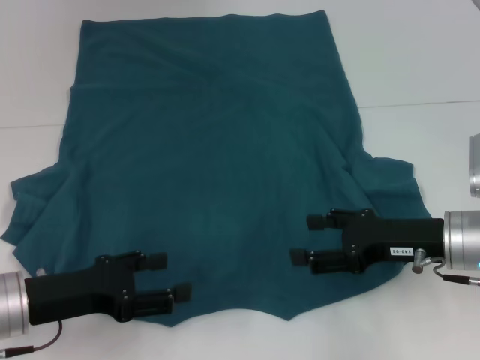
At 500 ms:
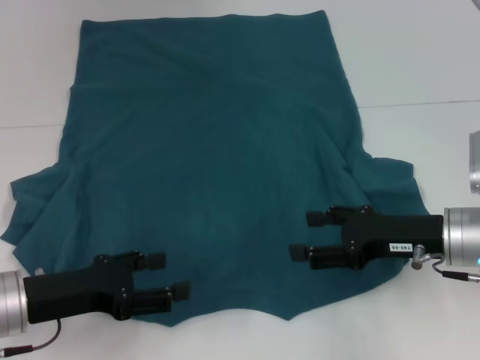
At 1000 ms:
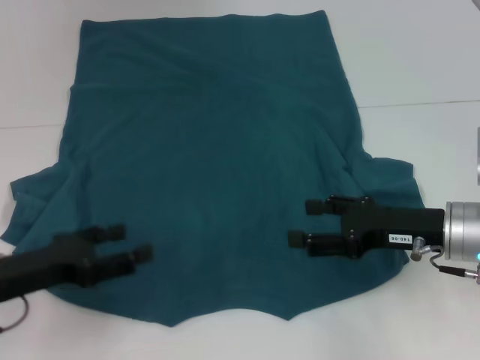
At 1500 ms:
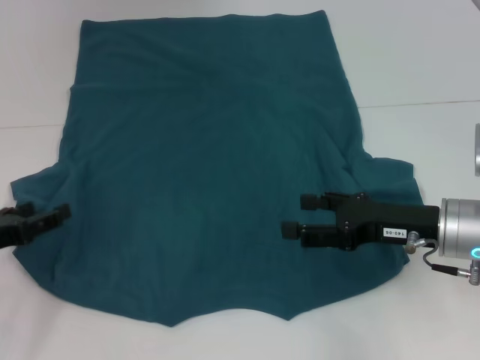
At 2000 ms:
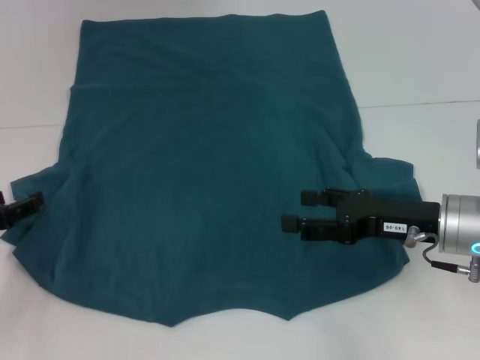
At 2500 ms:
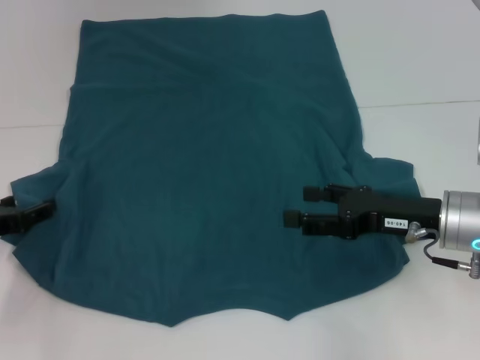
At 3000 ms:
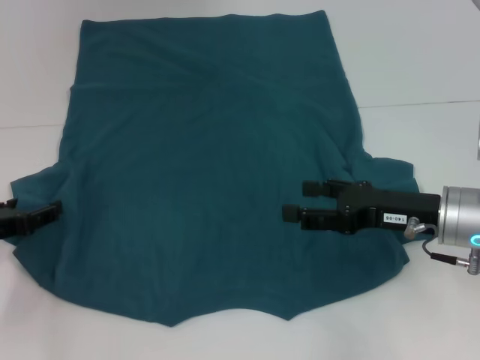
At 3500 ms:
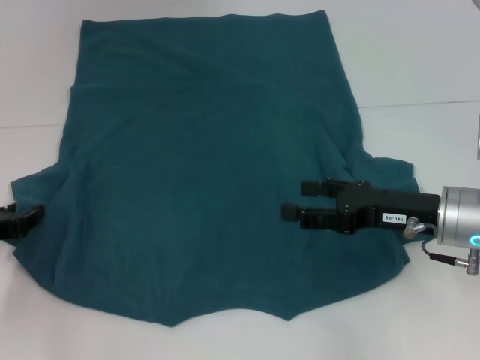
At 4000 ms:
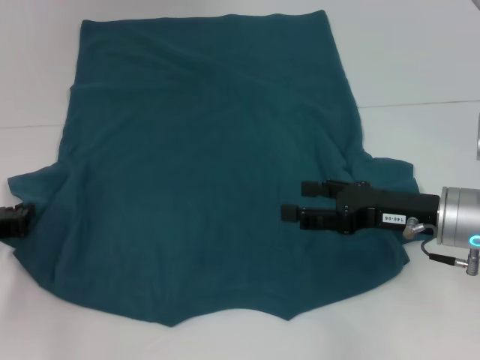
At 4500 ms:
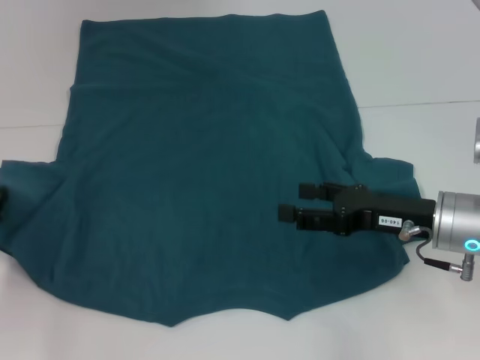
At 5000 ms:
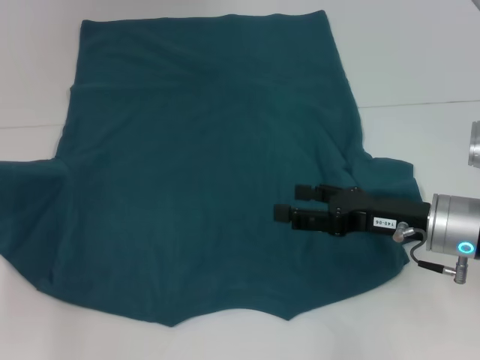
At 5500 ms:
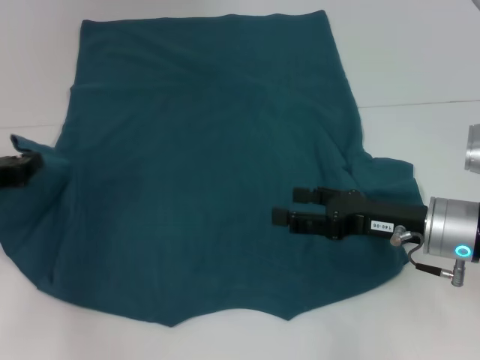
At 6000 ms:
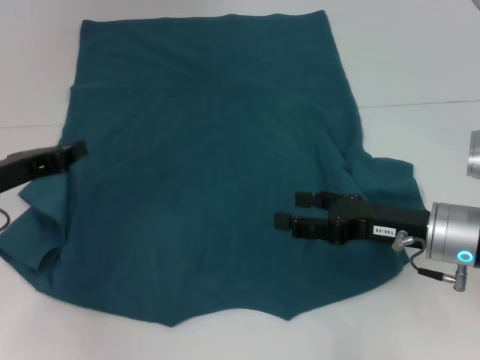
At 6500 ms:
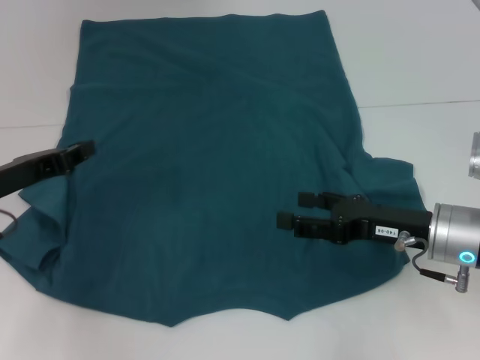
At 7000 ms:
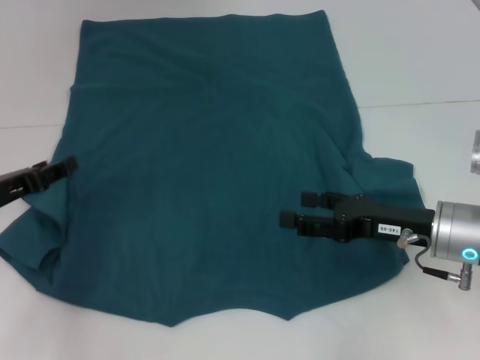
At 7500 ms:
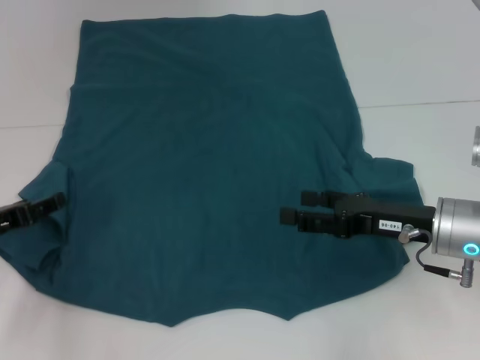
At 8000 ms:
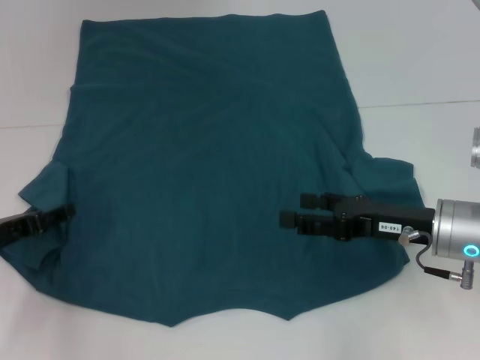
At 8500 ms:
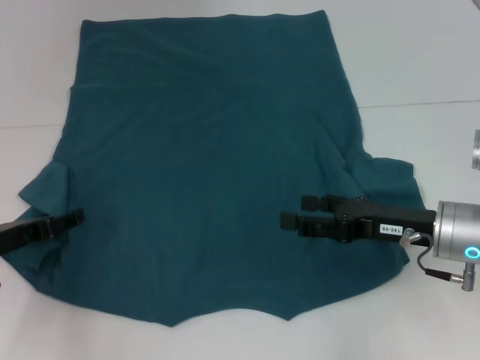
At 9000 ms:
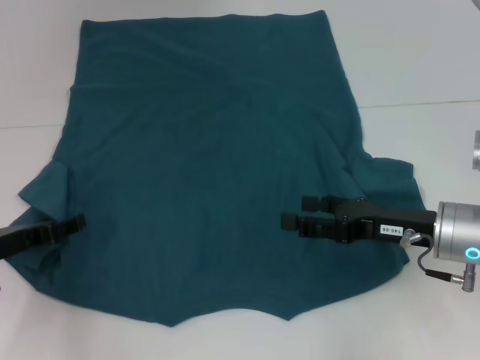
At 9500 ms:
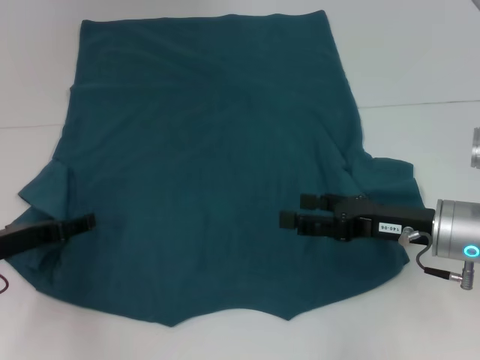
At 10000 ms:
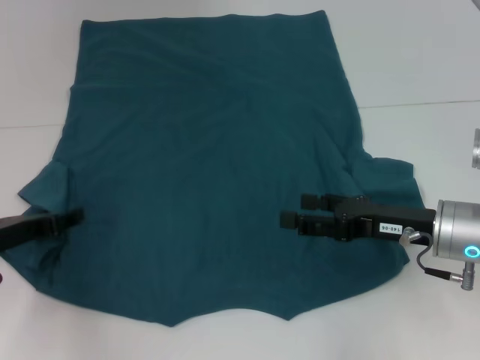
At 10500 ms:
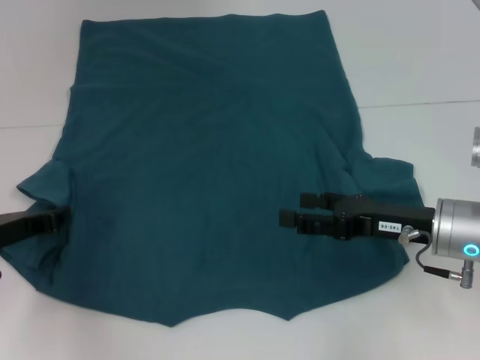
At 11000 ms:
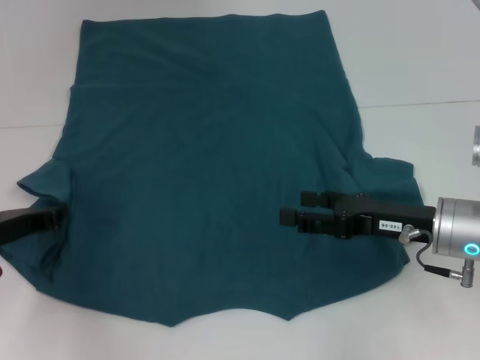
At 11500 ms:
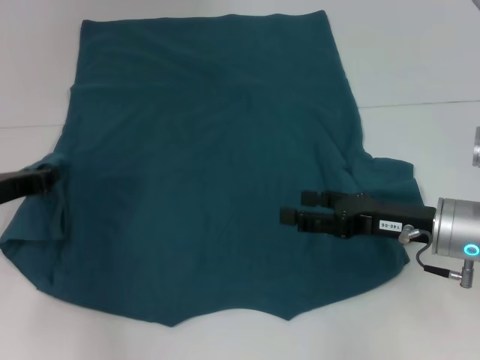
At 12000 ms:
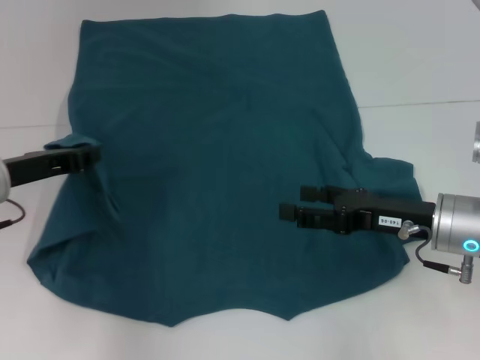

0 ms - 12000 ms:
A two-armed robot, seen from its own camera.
0 ms - 2000 ms: The left gripper moves to the left, some 10 cm.
2000 ms - 4000 ms: The left gripper closes up.
4000 ms - 6000 ms: The left gripper goes roughly 5 cm upward.
6000 ms - 8000 ms: The left gripper shifts some 5 cm downward, and opens.
10000 ms - 12000 ms: The left gripper moves upward, some 5 cm, and closes.

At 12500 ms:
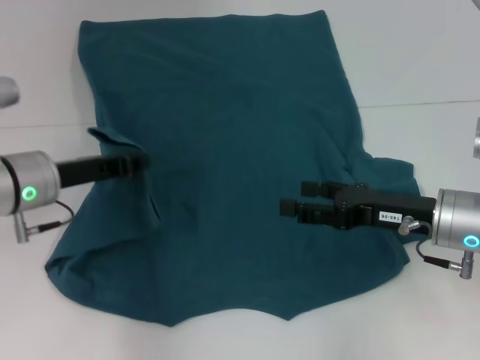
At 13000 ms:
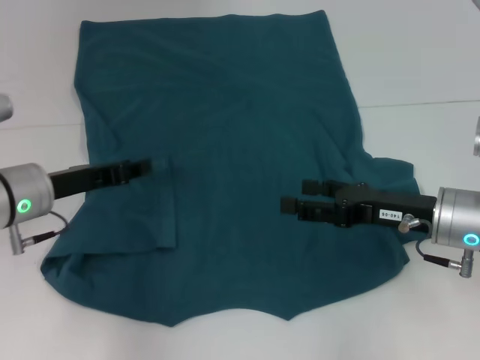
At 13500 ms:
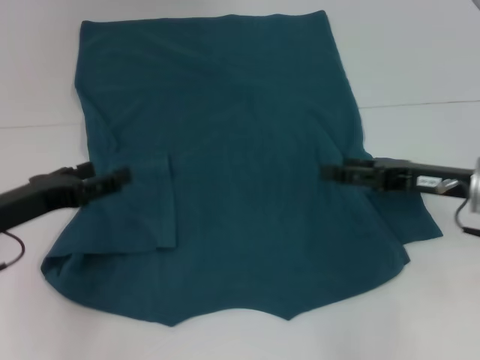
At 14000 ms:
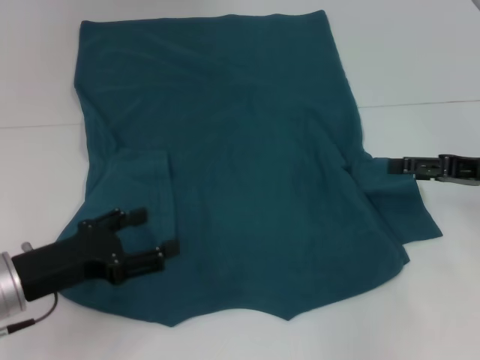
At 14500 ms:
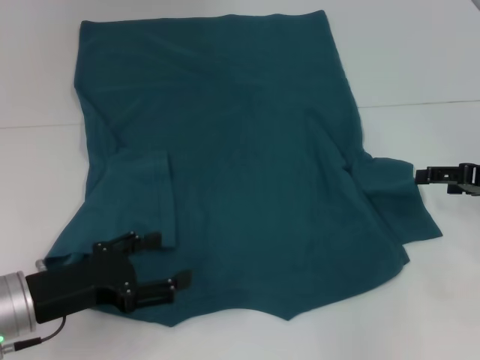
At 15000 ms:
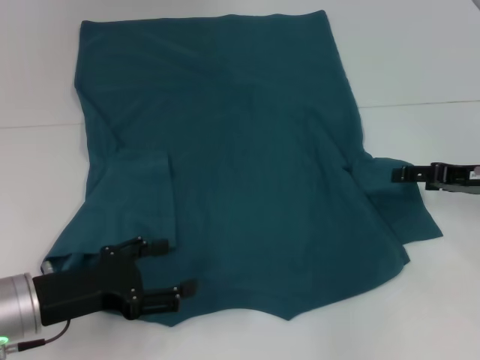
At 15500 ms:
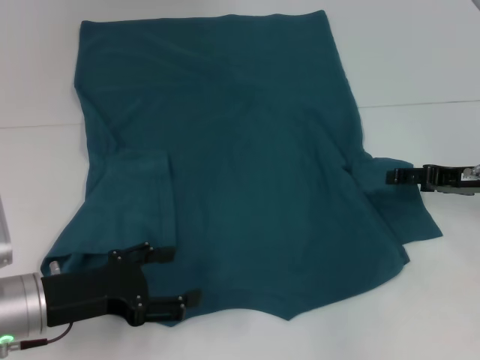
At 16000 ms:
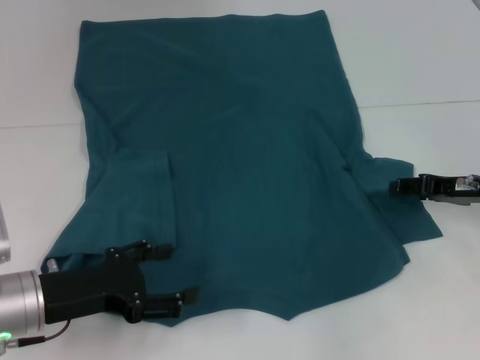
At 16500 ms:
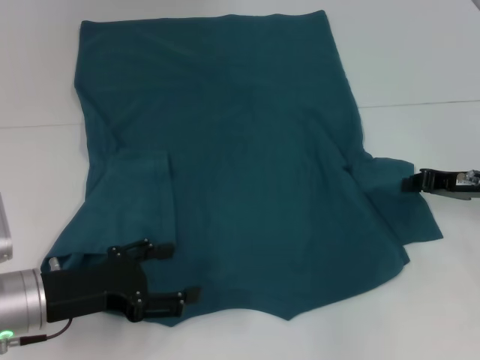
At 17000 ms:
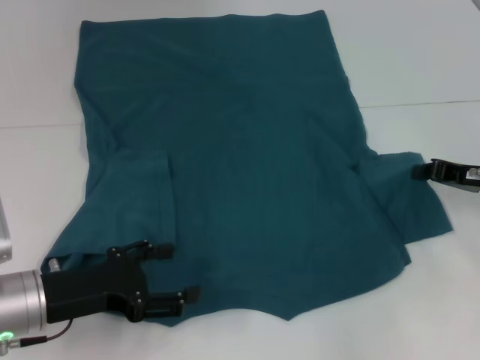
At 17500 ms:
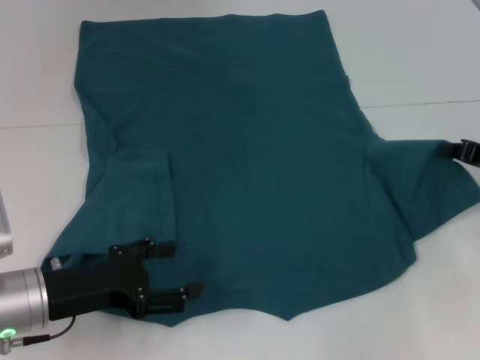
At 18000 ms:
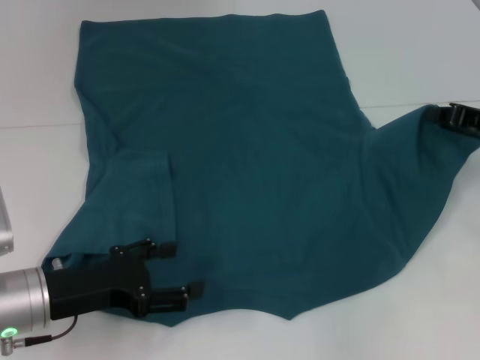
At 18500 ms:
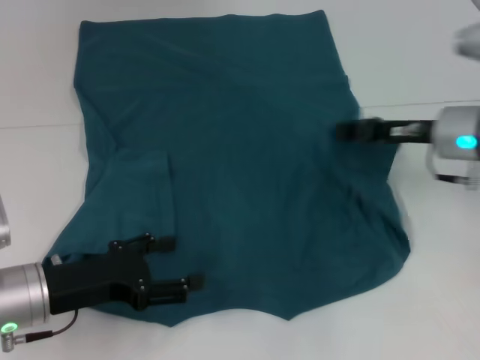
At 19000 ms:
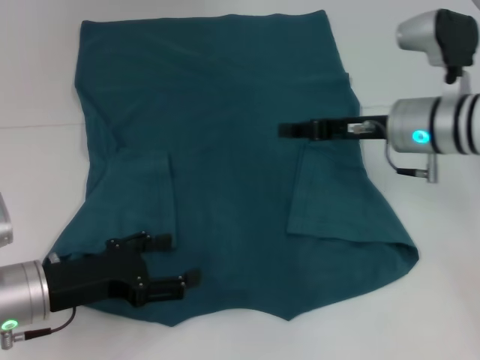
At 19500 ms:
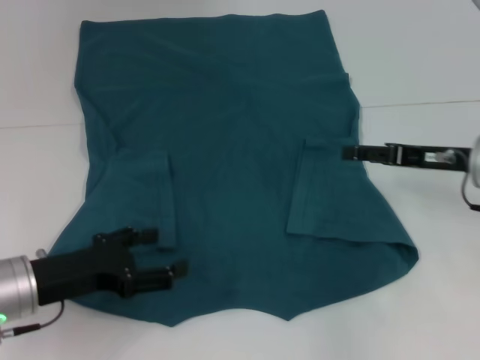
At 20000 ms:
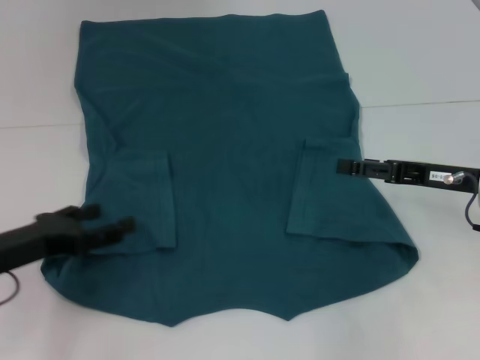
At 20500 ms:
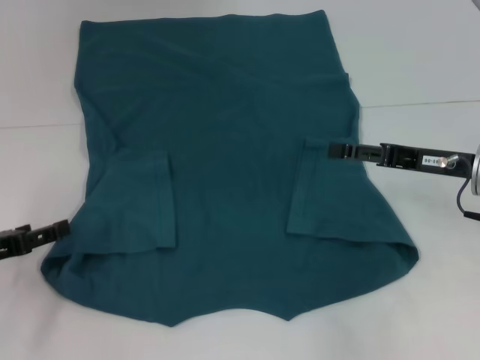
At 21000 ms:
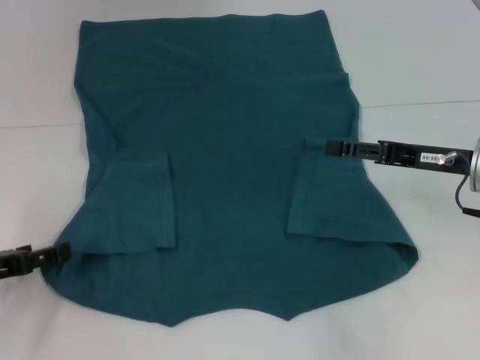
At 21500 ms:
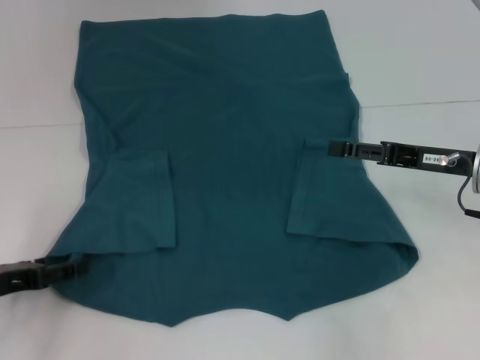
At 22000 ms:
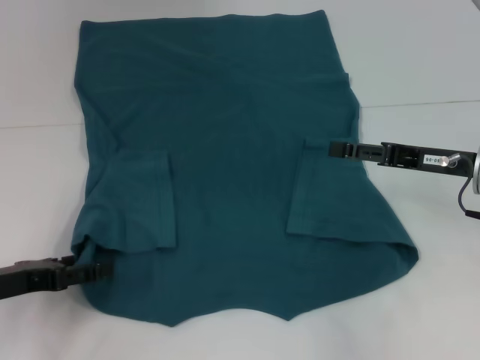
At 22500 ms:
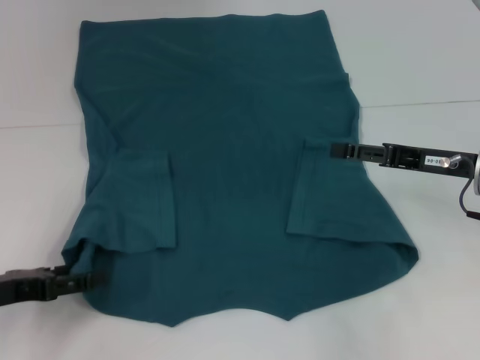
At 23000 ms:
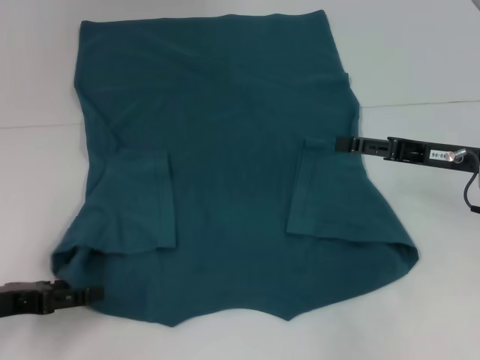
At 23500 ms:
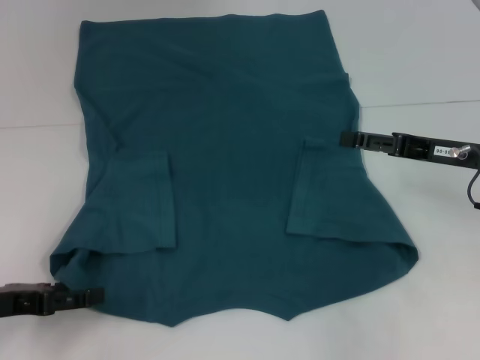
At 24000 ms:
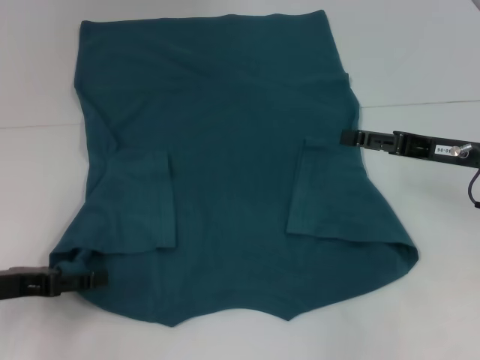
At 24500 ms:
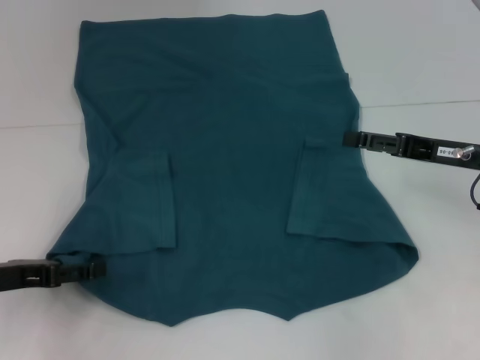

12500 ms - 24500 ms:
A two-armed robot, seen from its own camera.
Step, 13000 ms - 18500 ms: Fold the bottom right sleeve to the right.
12500 ms - 14500 ms: The left gripper heads backward and downward, covering some 10 cm, and opens. The right gripper shifts about 10 cm to the right.
14500 ms - 16500 ms: The right gripper changes place by approximately 5 cm, and closes its fingers.
16500 ms - 18500 ms: The right gripper travels to the left by about 5 cm.
18500 ms - 20500 ms: The left gripper is displaced to the left by approximately 10 cm; the right gripper travels to the left and back again, some 5 cm each way, and opens.
20500 ms - 22500 ms: The grippers stay close to where they were, moving slightly.
22500 ms - 24500 ms: The grippers move only a little.

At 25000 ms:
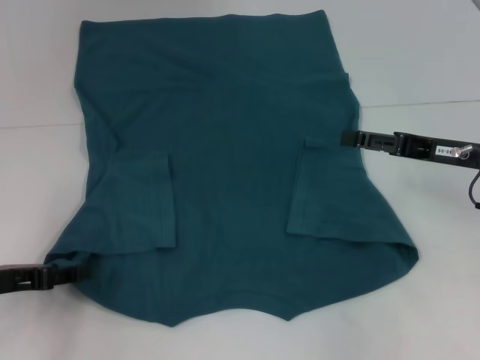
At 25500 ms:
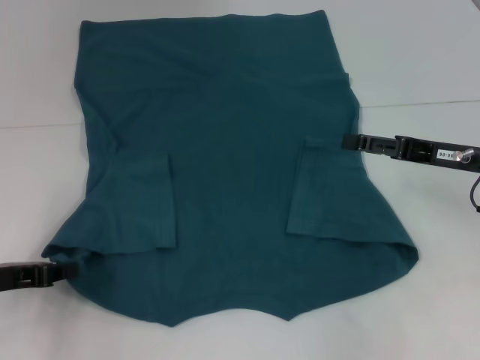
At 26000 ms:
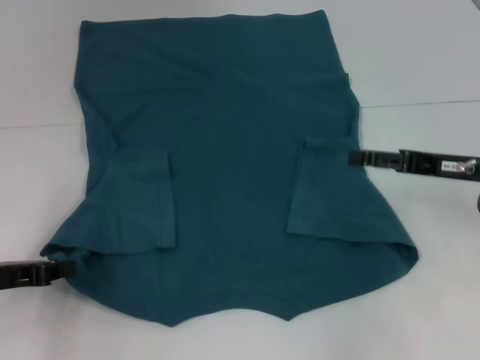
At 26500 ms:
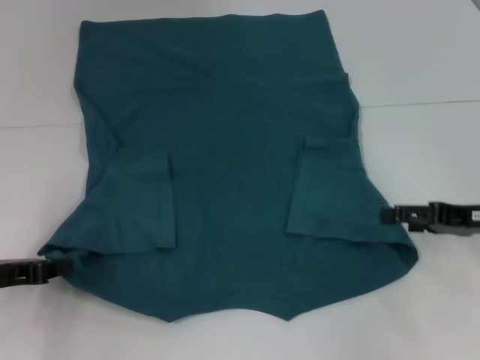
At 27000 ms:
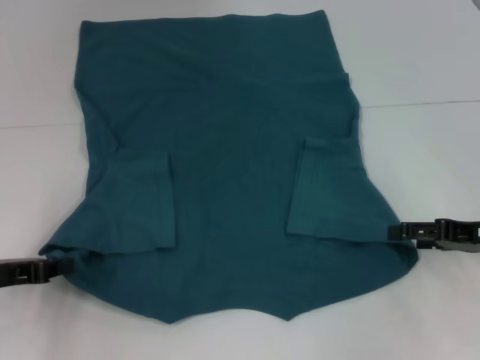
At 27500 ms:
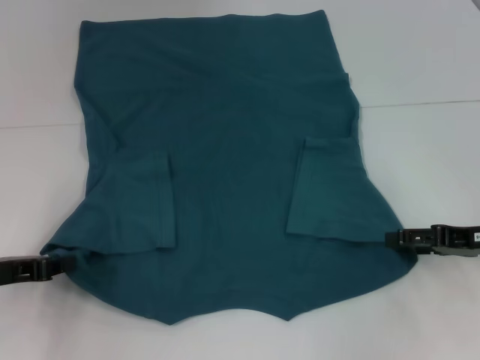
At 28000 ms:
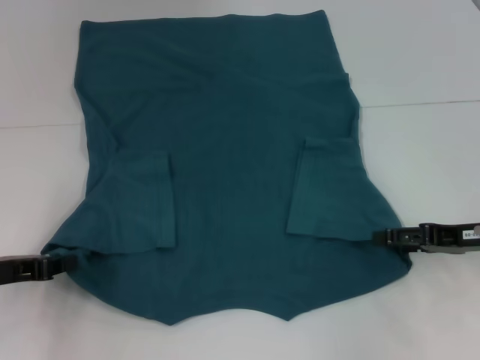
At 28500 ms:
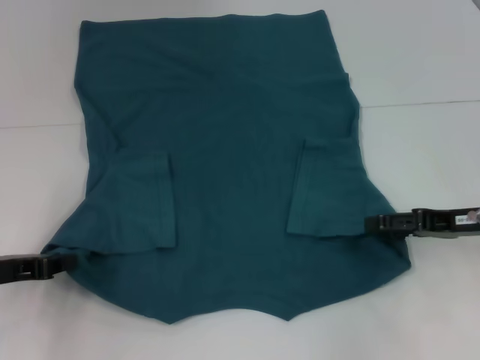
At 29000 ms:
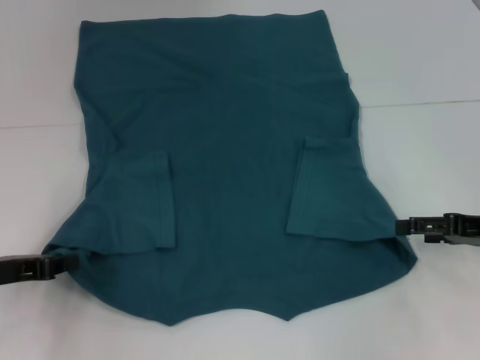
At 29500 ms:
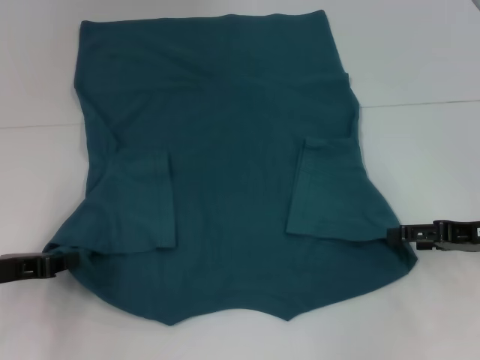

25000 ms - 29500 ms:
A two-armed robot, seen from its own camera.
25000 ms - 27000 ms: The left gripper closes up. The right gripper moves some 5 cm.
27000 ms - 29500 ms: The grippers move only a little.
